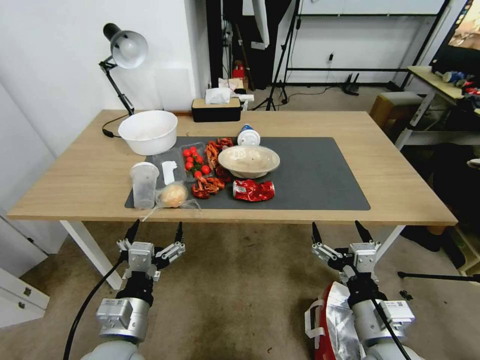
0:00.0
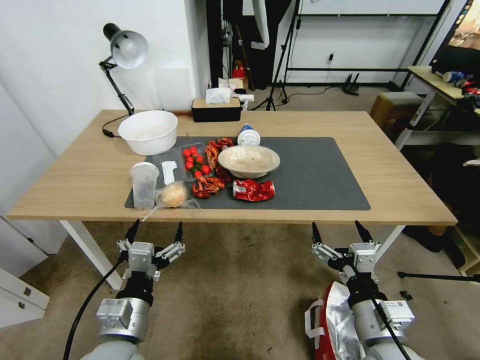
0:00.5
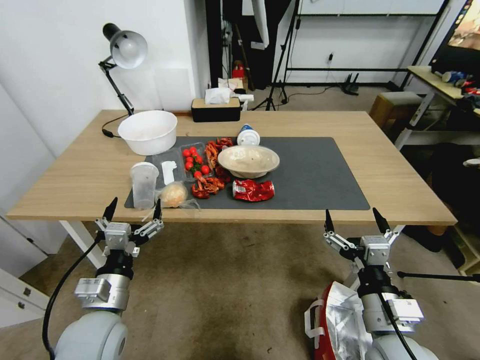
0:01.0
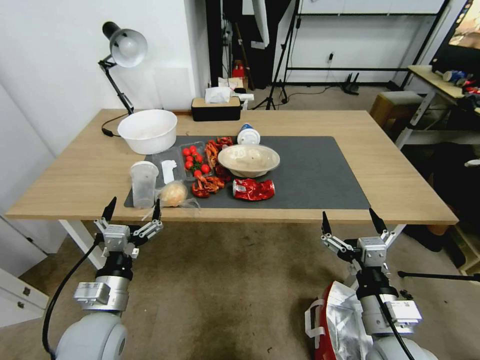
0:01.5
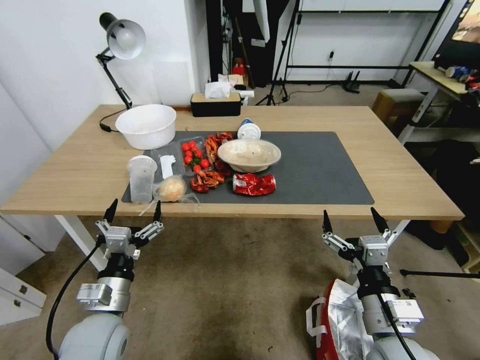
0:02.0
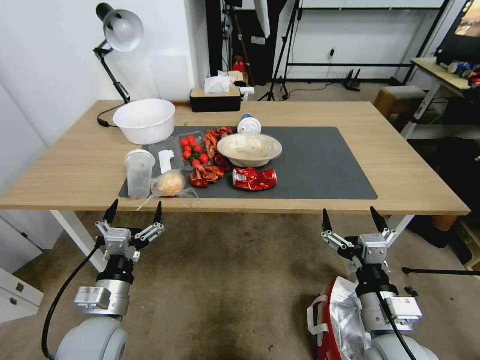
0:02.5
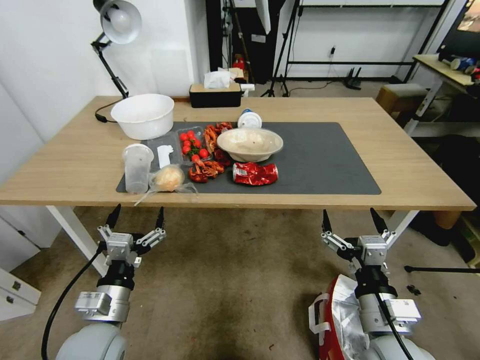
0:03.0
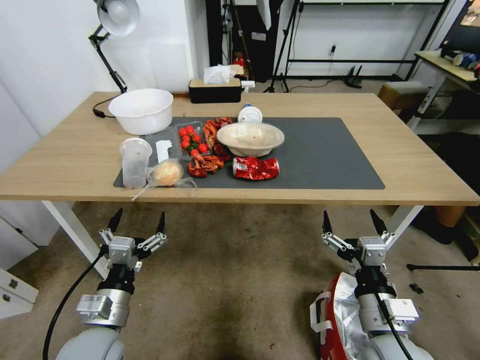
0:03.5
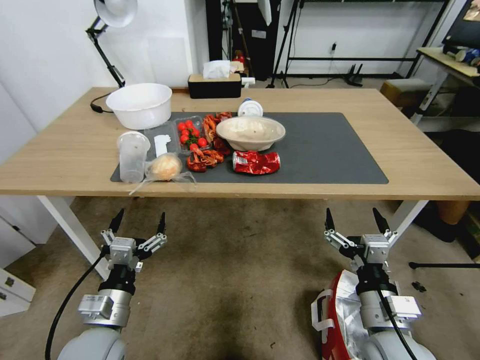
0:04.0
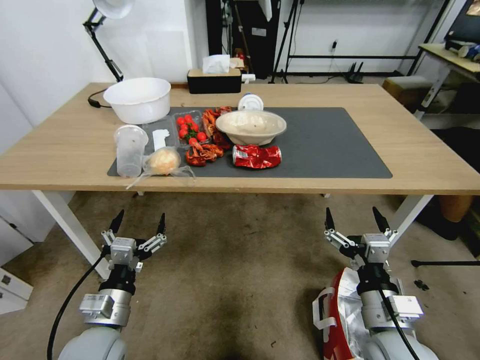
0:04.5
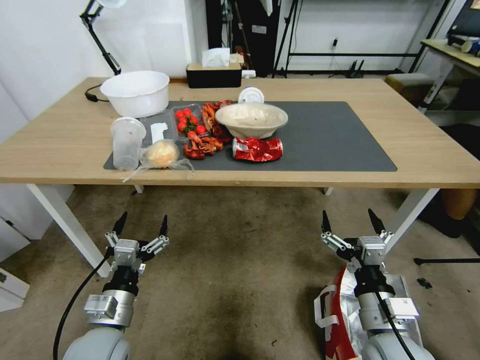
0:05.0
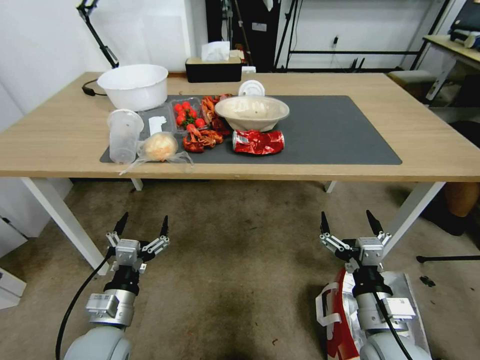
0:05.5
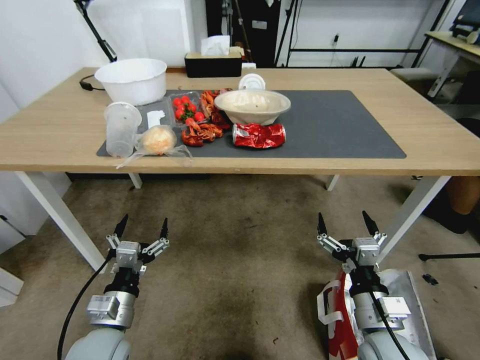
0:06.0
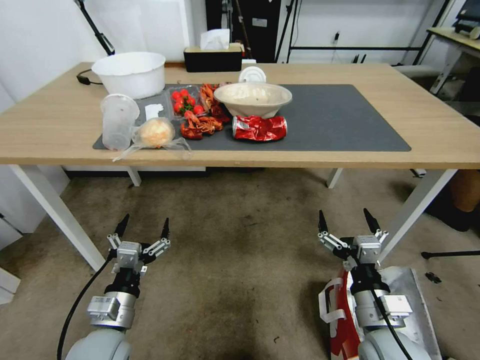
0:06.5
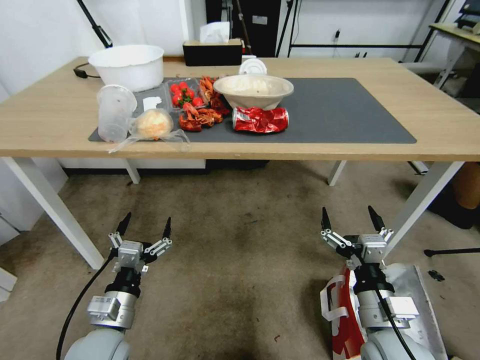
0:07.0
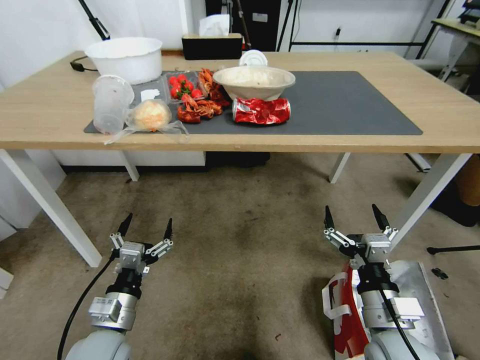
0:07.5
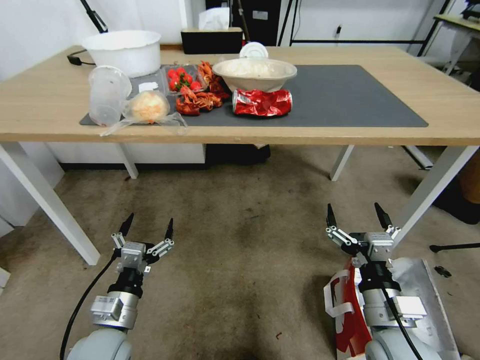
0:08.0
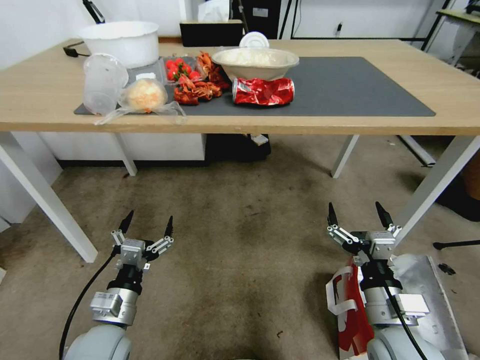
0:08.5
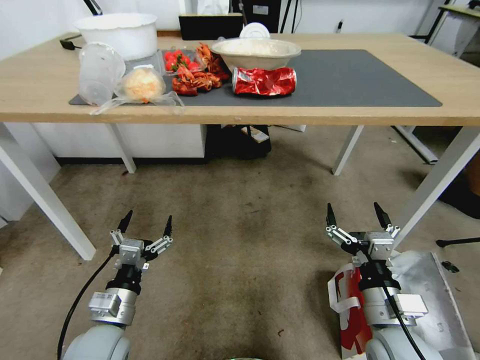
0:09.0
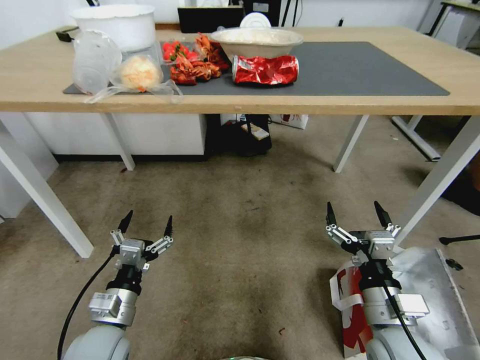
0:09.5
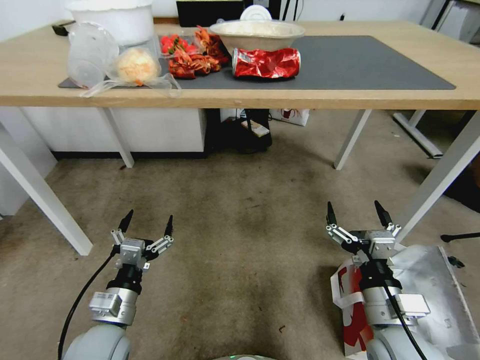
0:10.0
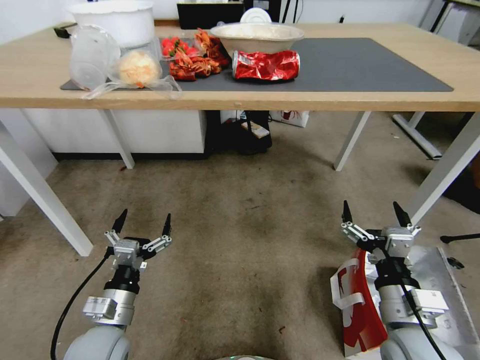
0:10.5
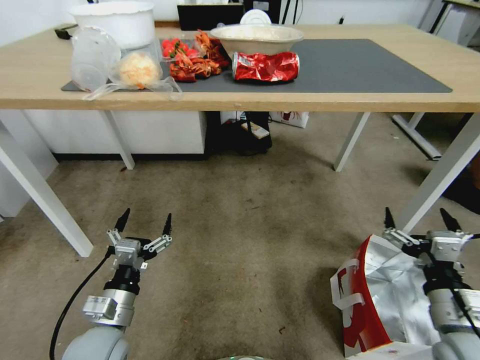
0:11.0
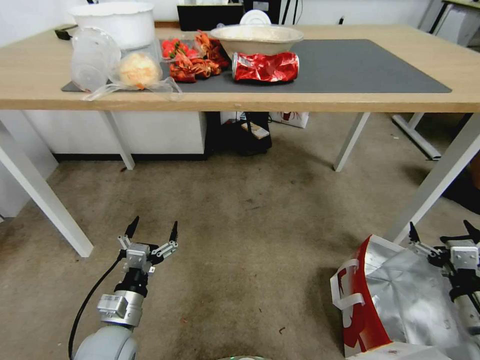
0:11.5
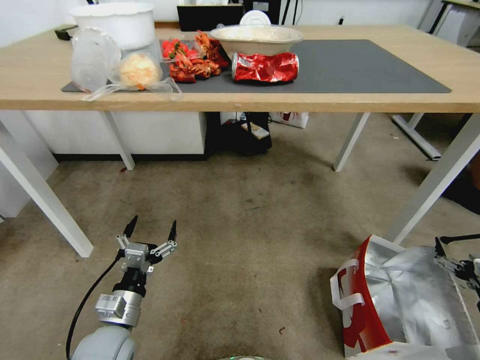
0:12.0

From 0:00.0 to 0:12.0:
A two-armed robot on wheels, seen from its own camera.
Task of the whole recording: Pick up the food delivery bag from the floor and place it on the table.
From 0:10.0 to 0:12.0: The right gripper heads to the right, covering some 25 cm.

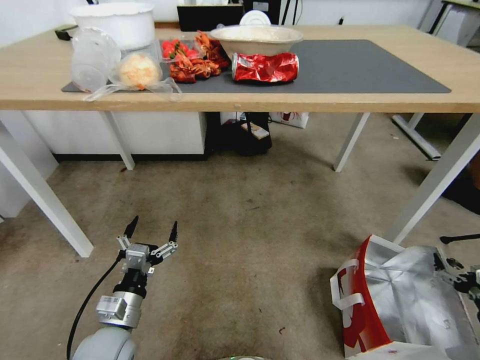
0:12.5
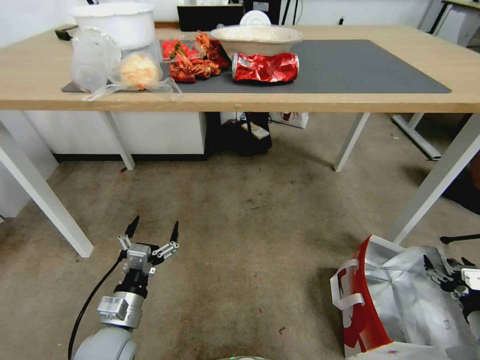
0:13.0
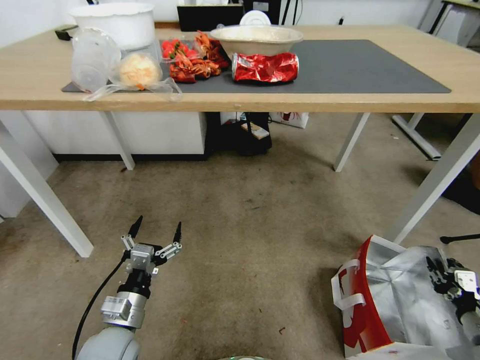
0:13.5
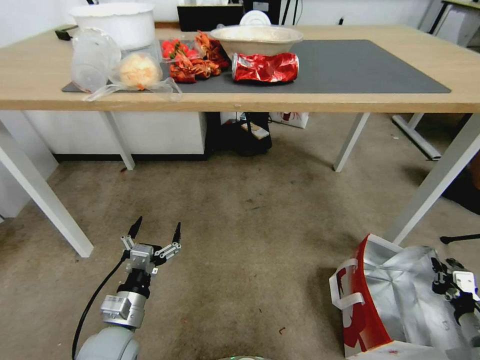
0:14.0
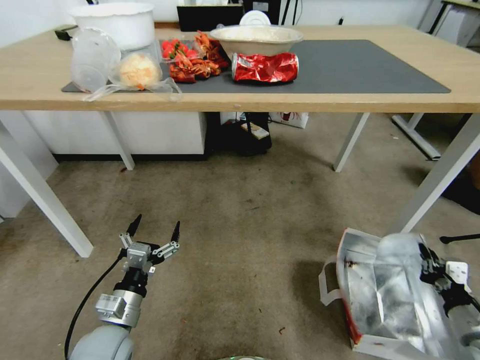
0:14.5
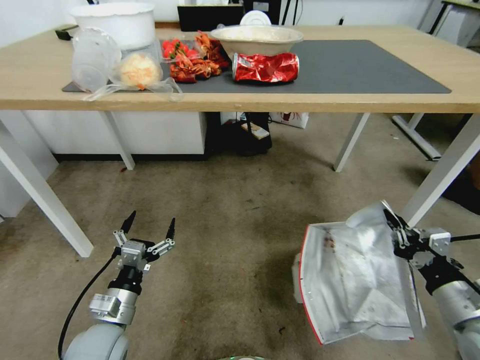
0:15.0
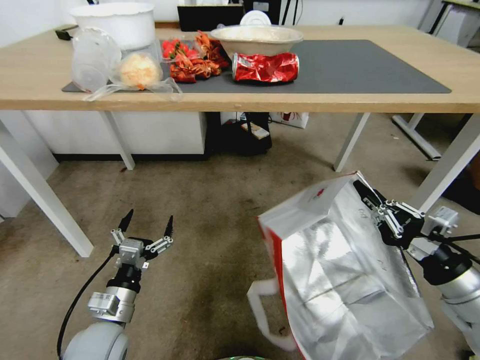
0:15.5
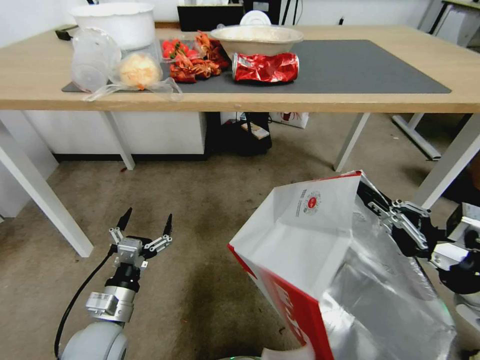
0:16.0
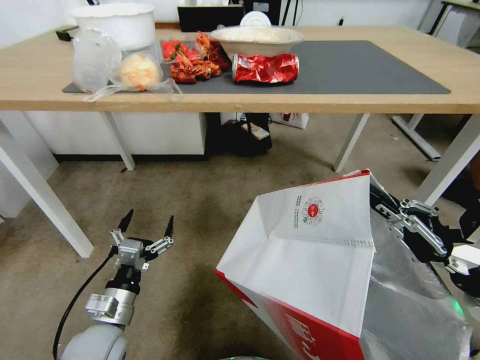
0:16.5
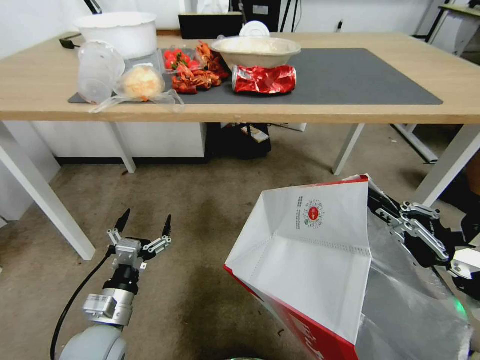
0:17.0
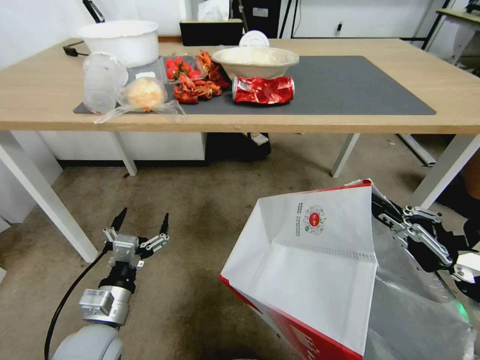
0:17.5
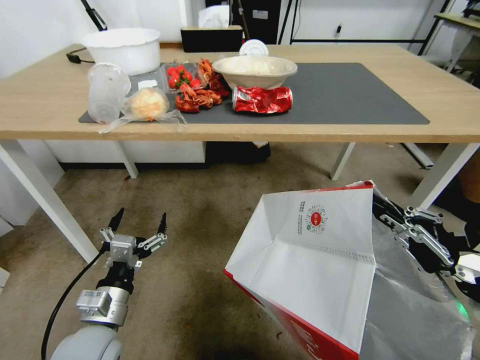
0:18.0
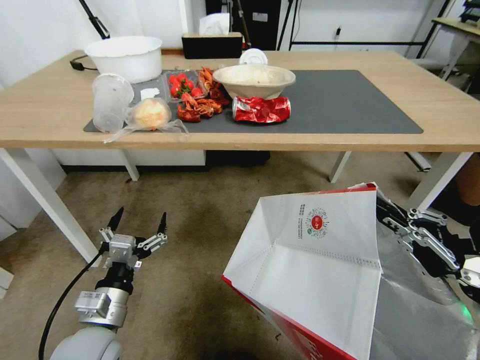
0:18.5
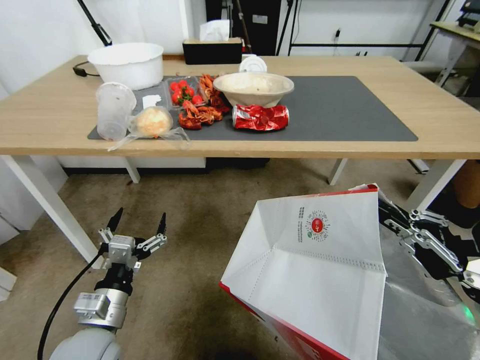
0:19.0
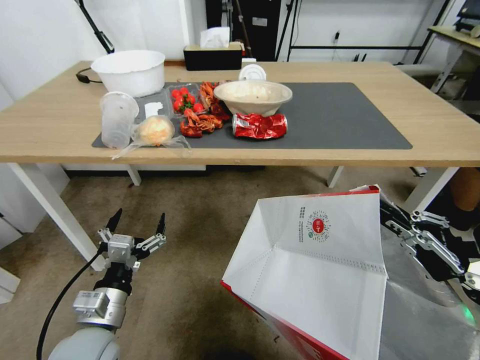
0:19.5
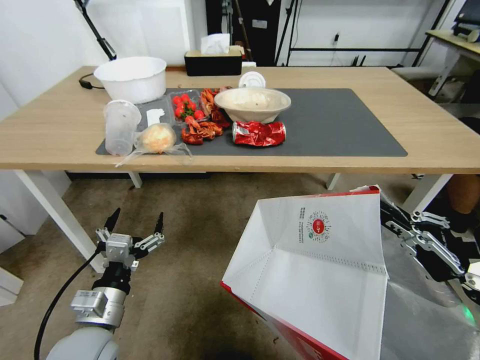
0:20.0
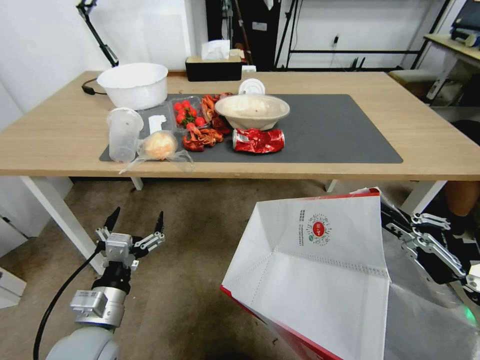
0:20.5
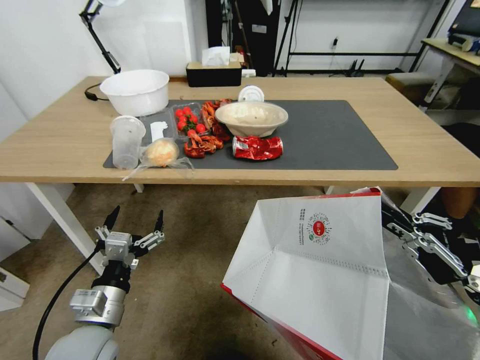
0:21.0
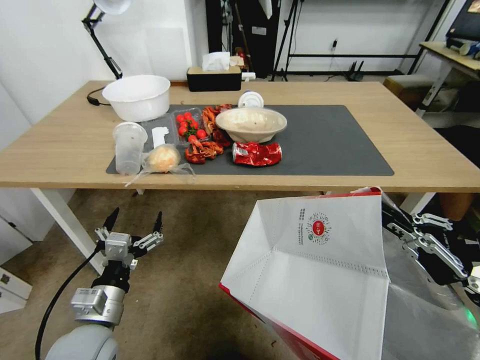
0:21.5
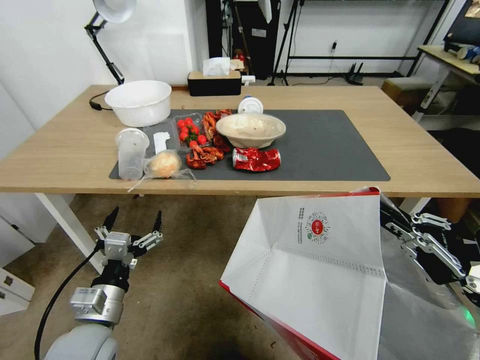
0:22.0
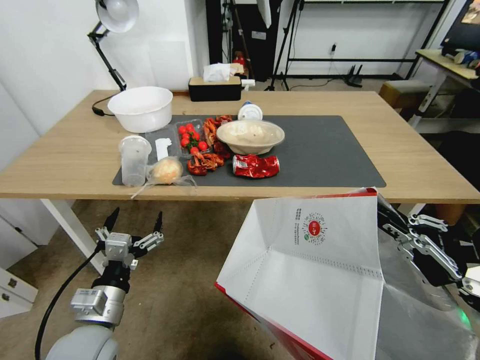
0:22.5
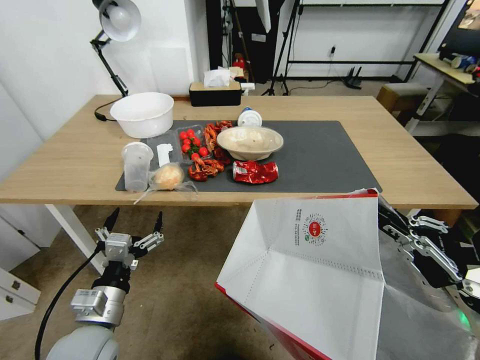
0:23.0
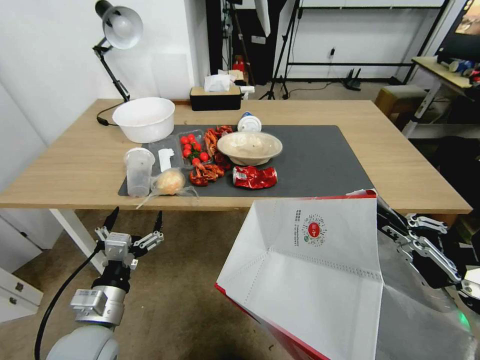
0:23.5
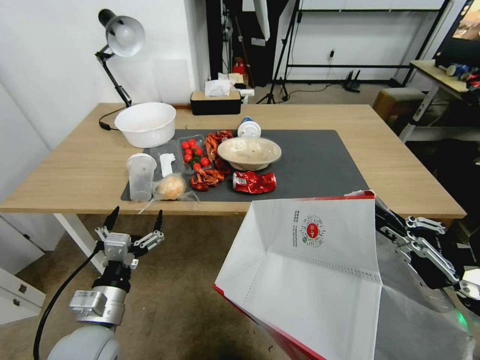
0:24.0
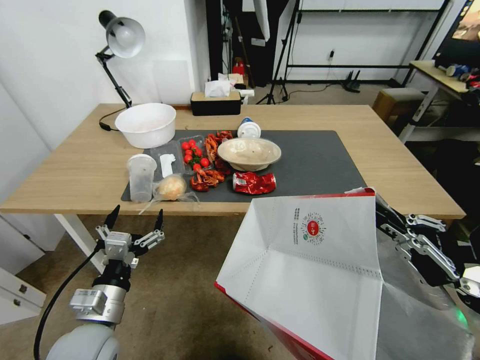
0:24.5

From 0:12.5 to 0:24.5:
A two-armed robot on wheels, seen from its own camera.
Task of the whole recording: Pick up the food delivery bag from the floor and place it on the table.
From 0:12.5 to 0:14.5: The right gripper moves to the left, about 5 cm, and closes its fingers.
From 0:14.5 to 0:16.5: The right gripper shifts approximately 20 cm upward.

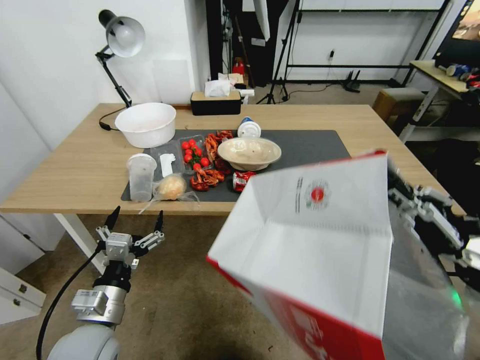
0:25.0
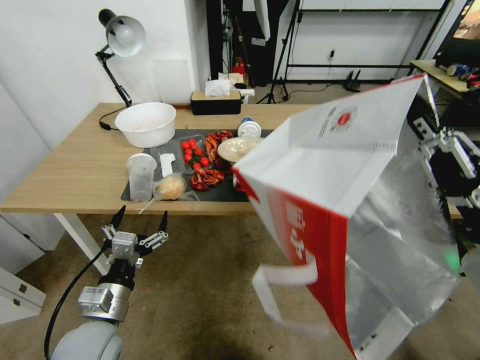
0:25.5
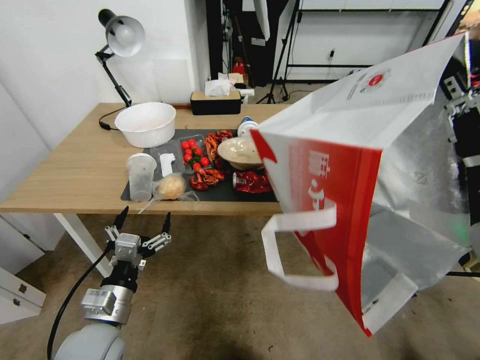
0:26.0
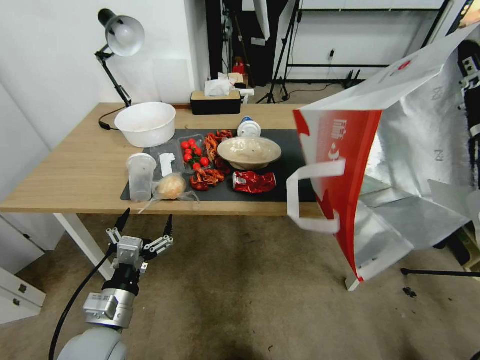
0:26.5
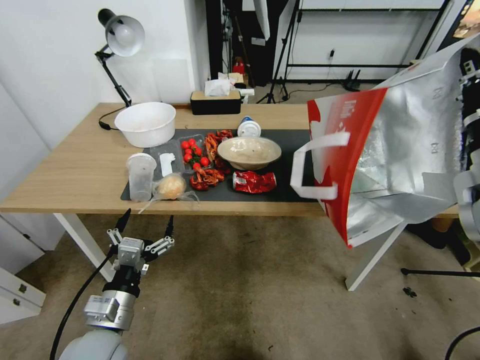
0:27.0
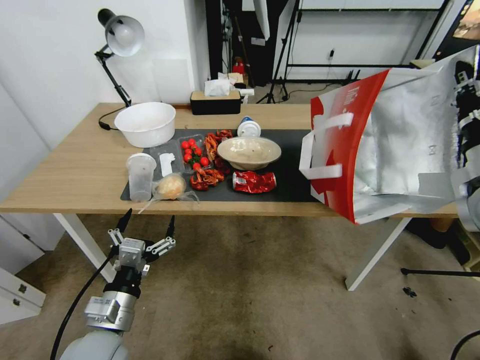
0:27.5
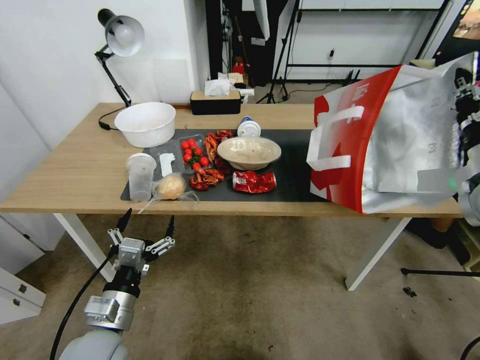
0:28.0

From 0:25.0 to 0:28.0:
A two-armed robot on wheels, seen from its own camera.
Task of the whole recording: Pick up the food delivery bag from the floor and place it on the table.
From 0:25.0 to 0:26.5: The right gripper shifts about 10 cm upward and forward.
From 0:26.5 to 0:28.0: The right gripper heads forward and to the right, covering about 10 cm.
